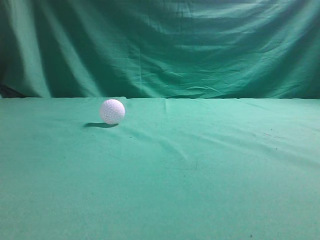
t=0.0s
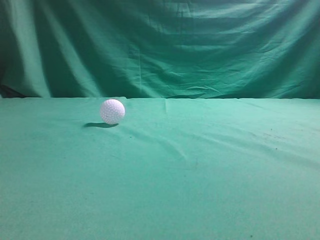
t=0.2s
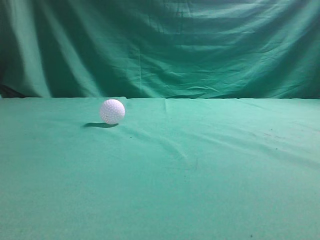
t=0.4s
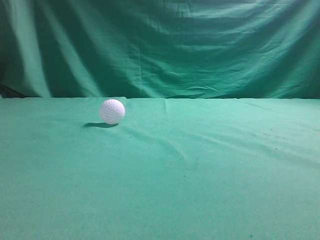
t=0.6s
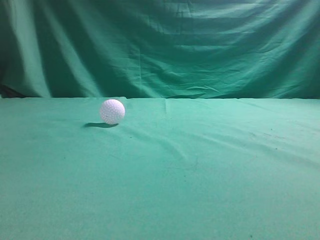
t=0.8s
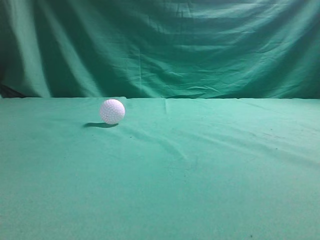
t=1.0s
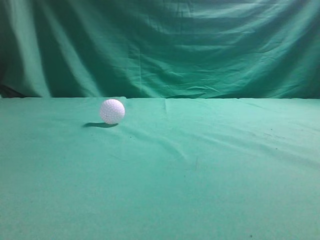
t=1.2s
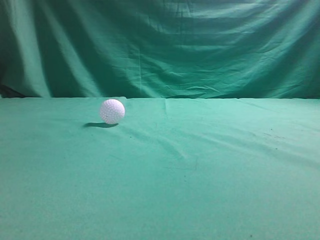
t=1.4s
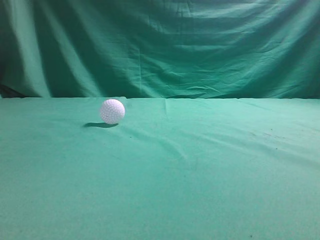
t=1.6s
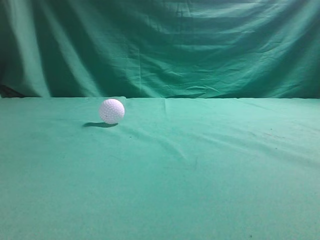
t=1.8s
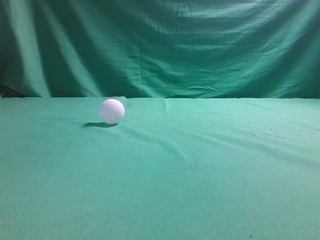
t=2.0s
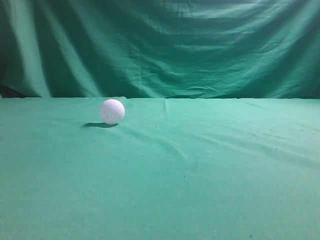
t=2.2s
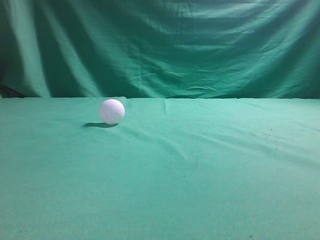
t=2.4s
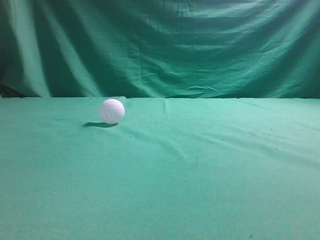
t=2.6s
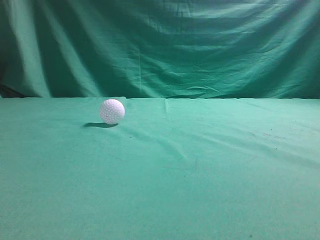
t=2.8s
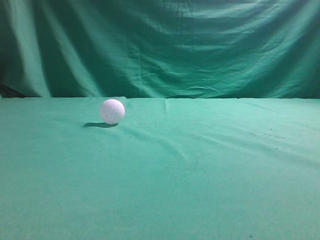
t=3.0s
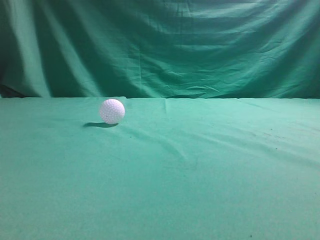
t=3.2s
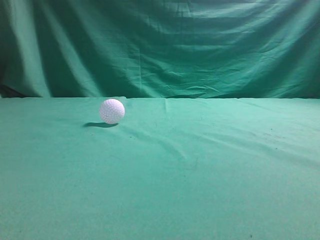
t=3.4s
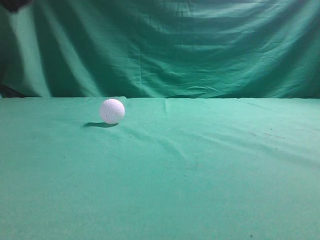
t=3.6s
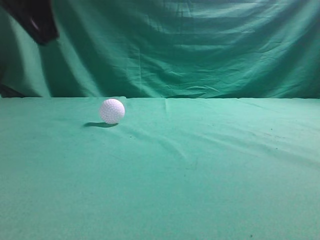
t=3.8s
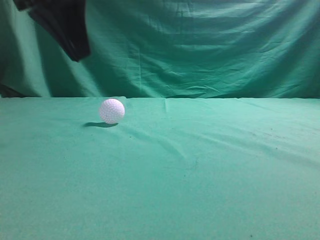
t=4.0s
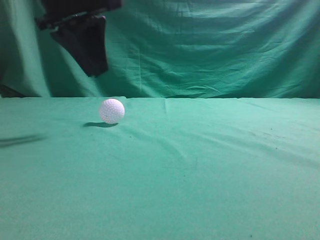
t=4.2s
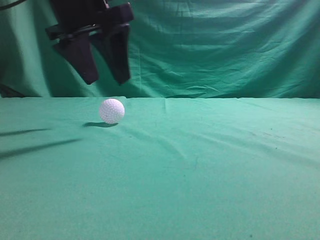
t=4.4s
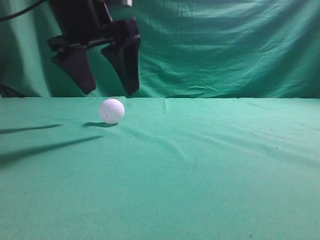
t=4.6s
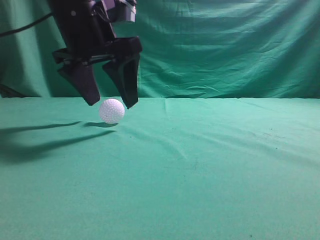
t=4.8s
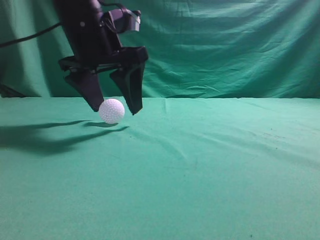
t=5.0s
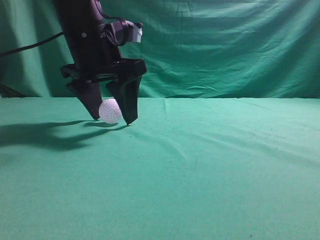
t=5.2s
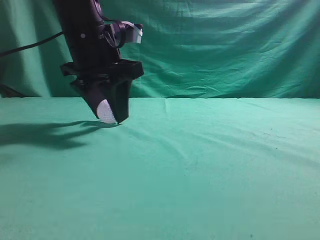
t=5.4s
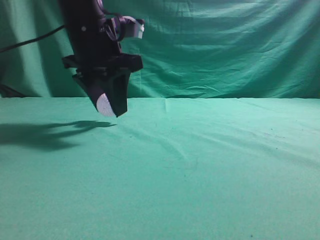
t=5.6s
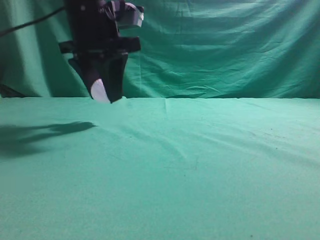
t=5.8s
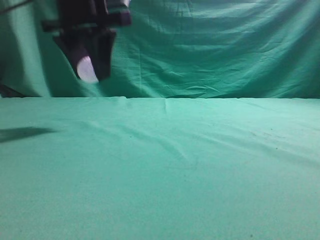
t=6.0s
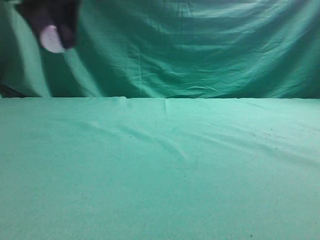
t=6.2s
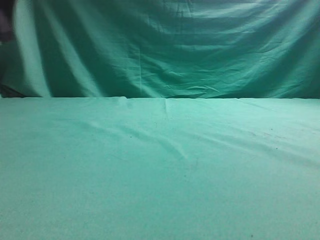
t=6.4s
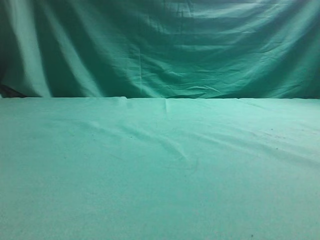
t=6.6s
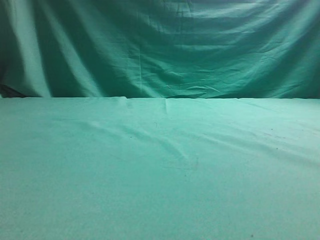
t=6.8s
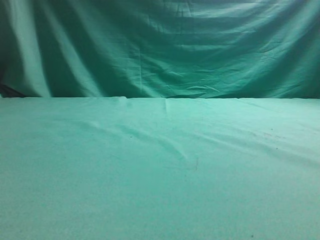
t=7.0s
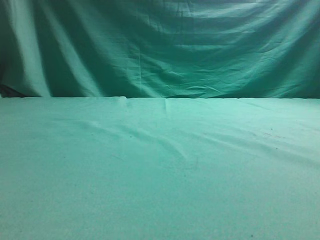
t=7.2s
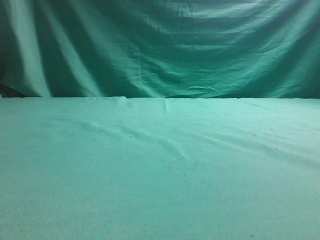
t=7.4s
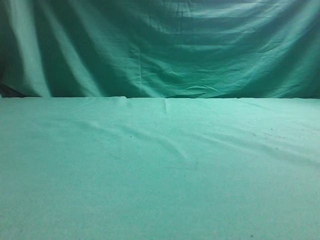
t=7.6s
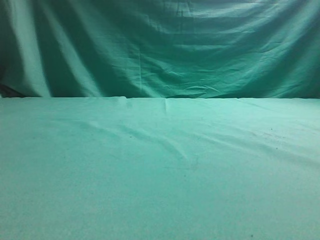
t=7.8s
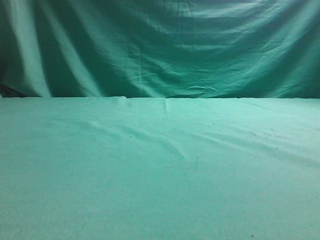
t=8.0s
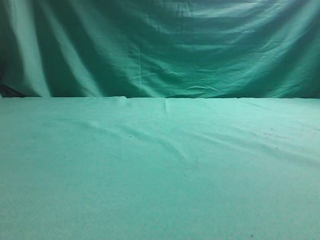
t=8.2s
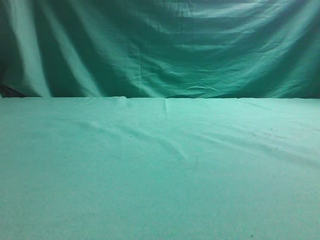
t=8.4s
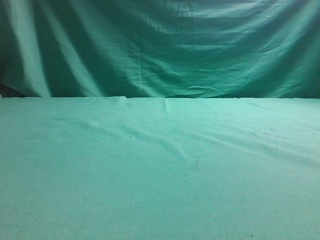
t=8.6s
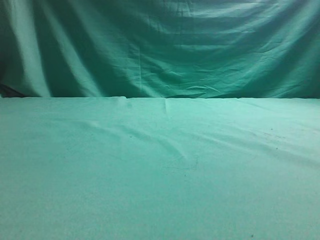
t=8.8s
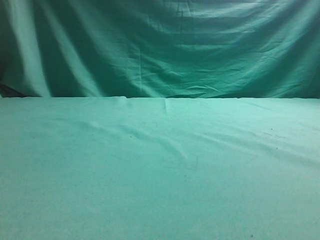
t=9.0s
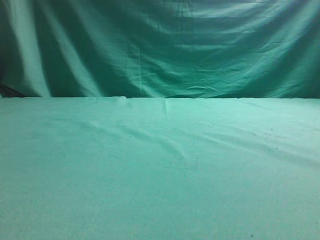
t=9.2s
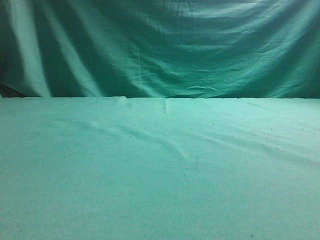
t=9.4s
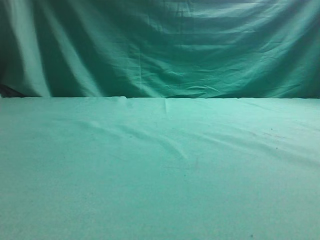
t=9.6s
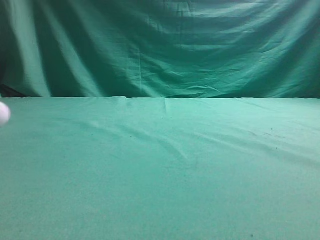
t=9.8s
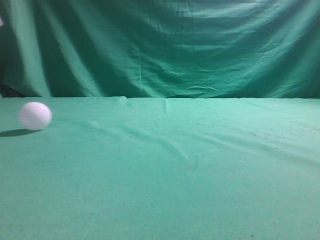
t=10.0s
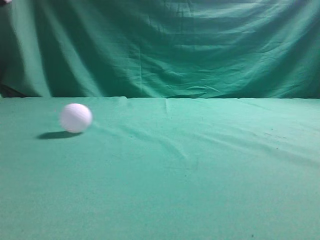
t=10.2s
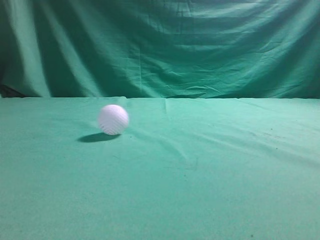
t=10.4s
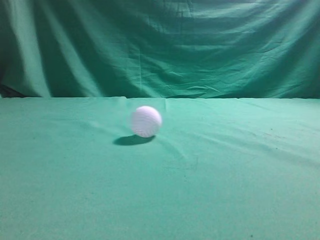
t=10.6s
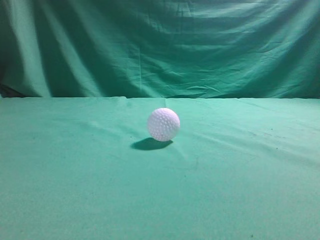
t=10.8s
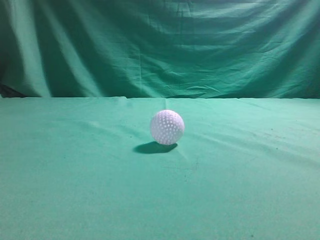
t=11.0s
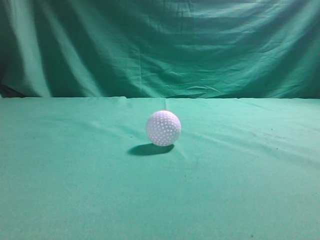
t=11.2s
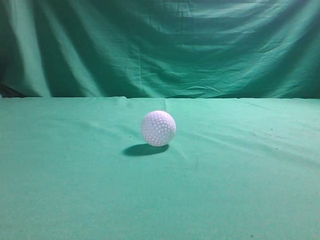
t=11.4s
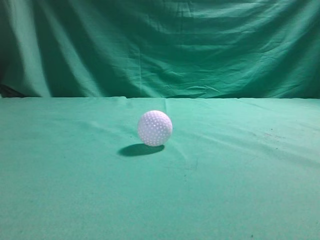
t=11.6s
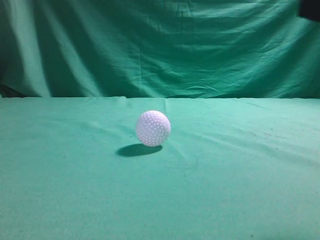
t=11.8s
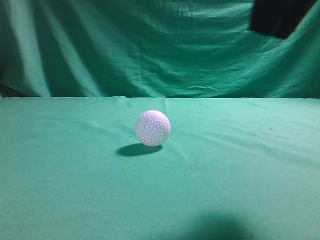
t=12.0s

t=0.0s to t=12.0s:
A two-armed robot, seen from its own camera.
Task of the whole recording: pick up the ball and place it on the plate, then pick up the ball from the plate and put it in the center of the table.
Step, t=0.0s to t=5.8s: Grab the spherical object with your left arm.
Step, t=6.0s to t=9.2s: Place the sphere on the white object.
t=3.0s to t=4.4s: The left gripper travels forward and to the right by some 30 cm, and opens.
t=6.0s to t=7.6s: The left gripper shifts about 25 cm to the left.
t=9.0s to t=10.4s: The left gripper heads upward and to the right, covering roughly 20 cm, and closes its fingers.
t=10.4s to t=12.0s: The left gripper travels backward and downward by some 25 cm; the right gripper is displaced to the left and forward by some 15 cm.

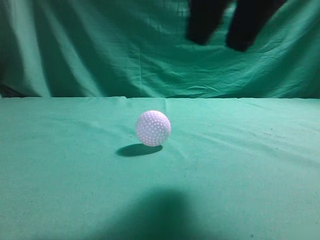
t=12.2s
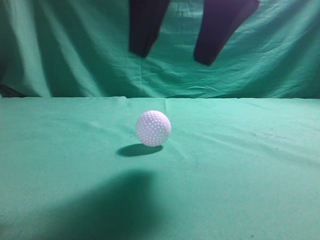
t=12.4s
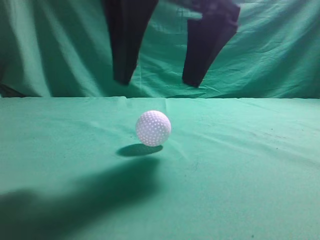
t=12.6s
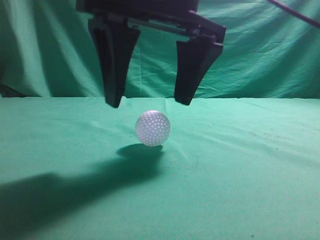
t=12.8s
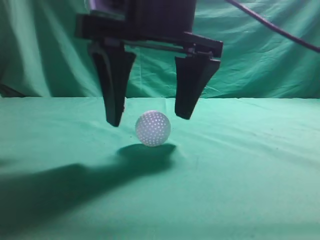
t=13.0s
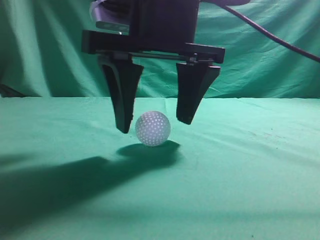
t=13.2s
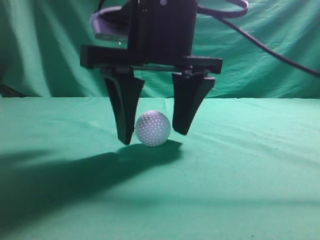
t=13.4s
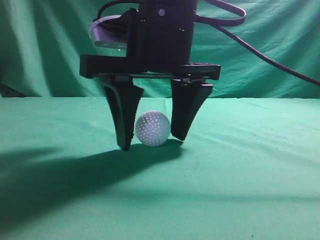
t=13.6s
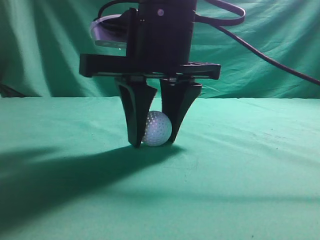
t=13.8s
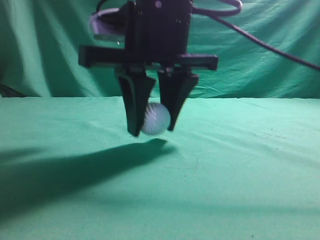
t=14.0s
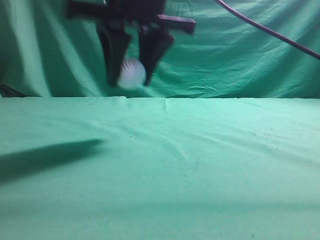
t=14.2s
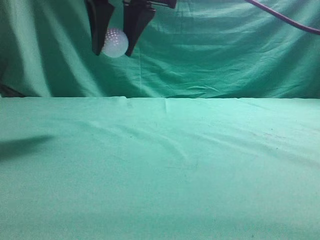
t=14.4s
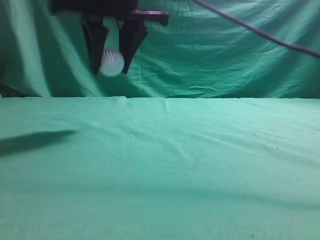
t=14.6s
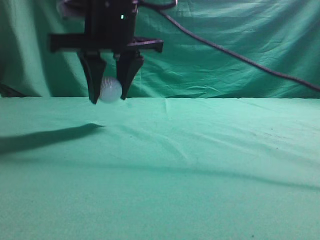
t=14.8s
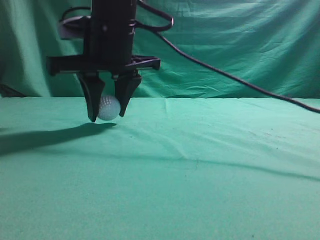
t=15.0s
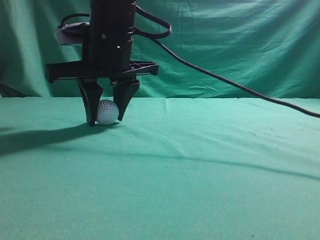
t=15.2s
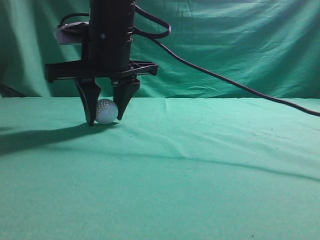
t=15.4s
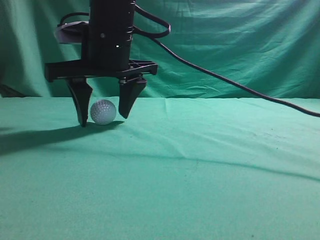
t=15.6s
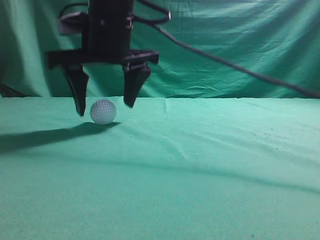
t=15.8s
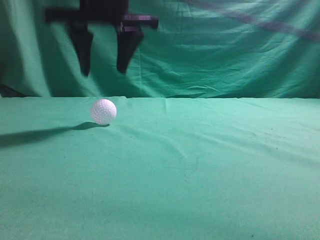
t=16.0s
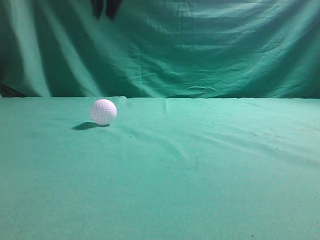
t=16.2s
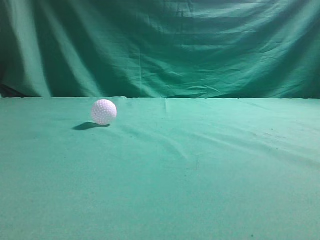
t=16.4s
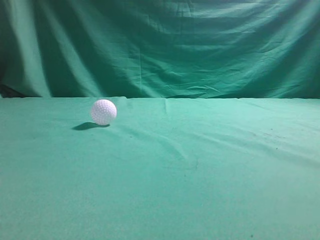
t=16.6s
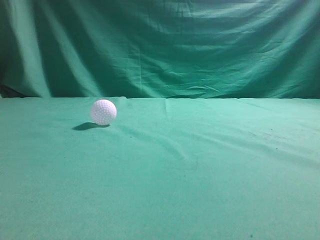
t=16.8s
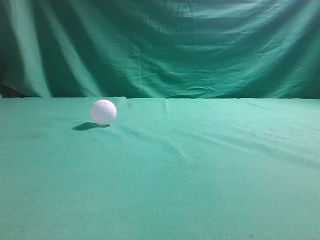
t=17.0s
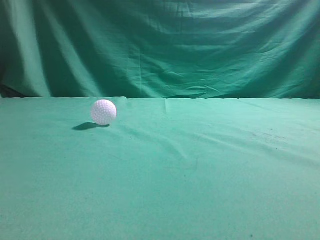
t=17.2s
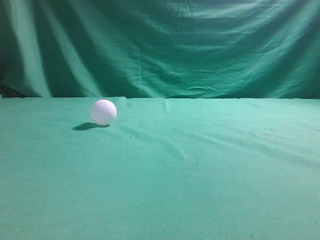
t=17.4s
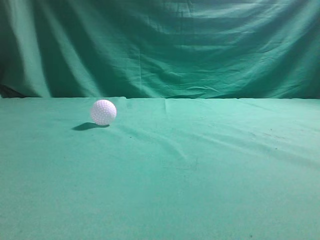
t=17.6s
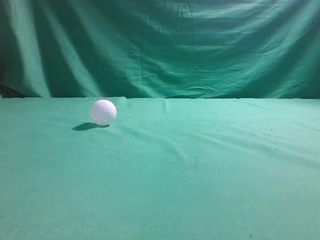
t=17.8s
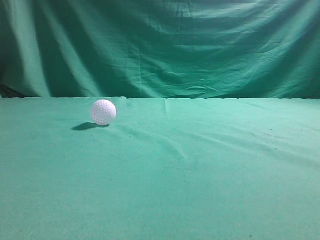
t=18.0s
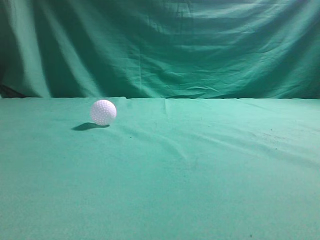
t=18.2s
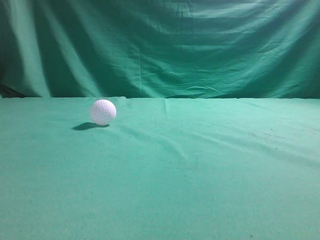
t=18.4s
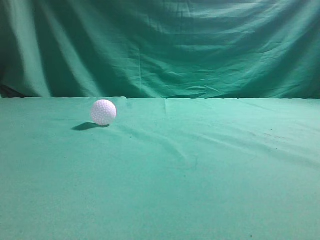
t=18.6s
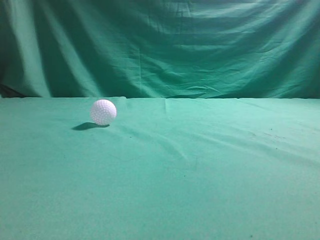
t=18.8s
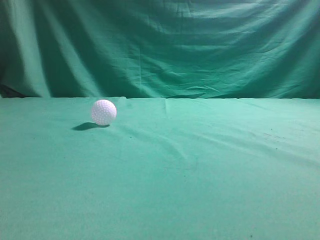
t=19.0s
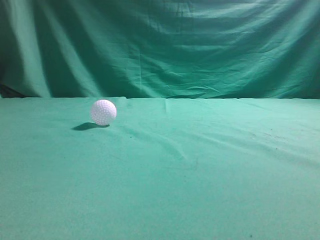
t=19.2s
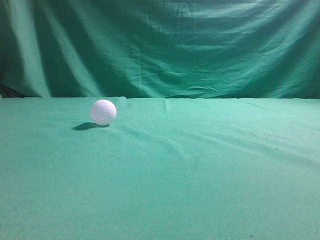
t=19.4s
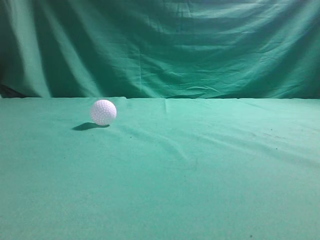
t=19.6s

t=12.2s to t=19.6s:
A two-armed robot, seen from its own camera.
Task of the whole recording: pick up the ball and place it on the plate, then pick up the ball from the plate and put it in the center of the table.
Step, t=14.2s to t=15.8s: Put the picked-up object on the table.
t=12.2s to t=13.6s: The right gripper heads downward, to the left and forward, covering roughly 15 cm.
t=13.6s to t=15.2s: The right gripper is displaced forward and to the left by some 10 cm, reaches roughly 10 cm upward, then returns, and closes.
t=15.2s to t=16.6s: The right gripper moves upward, about 30 cm, and closes its fingers.
